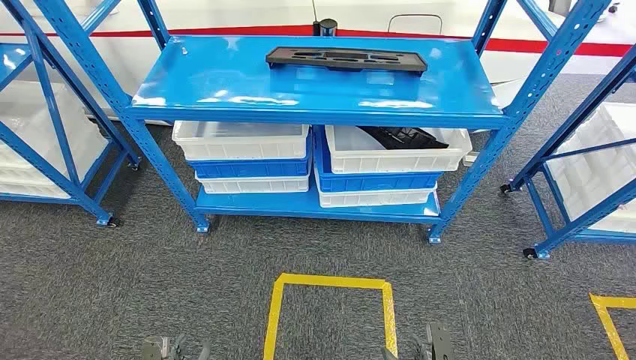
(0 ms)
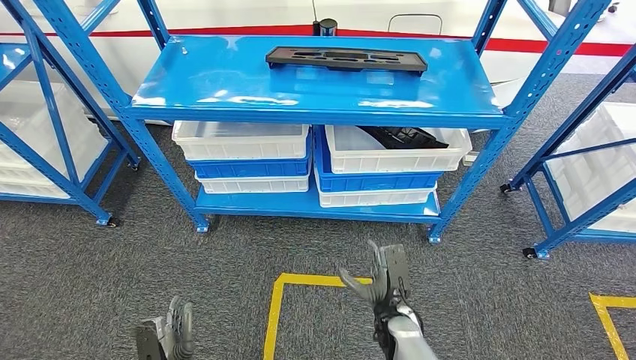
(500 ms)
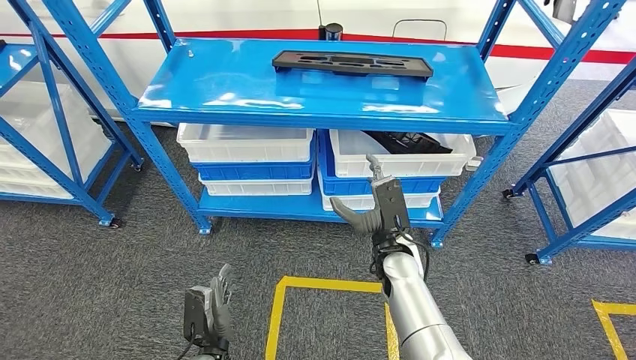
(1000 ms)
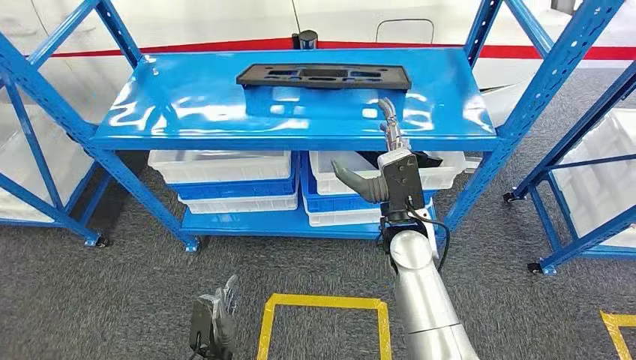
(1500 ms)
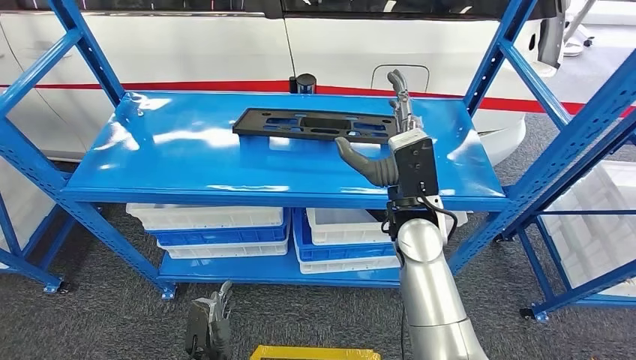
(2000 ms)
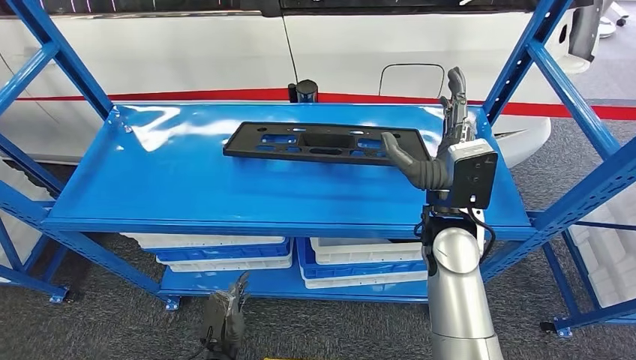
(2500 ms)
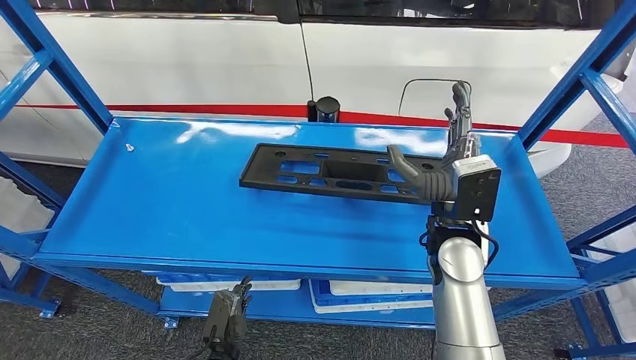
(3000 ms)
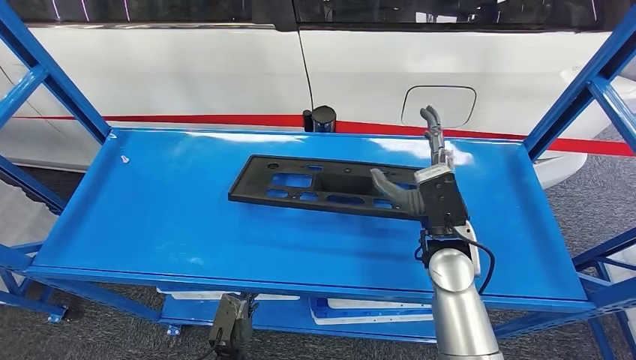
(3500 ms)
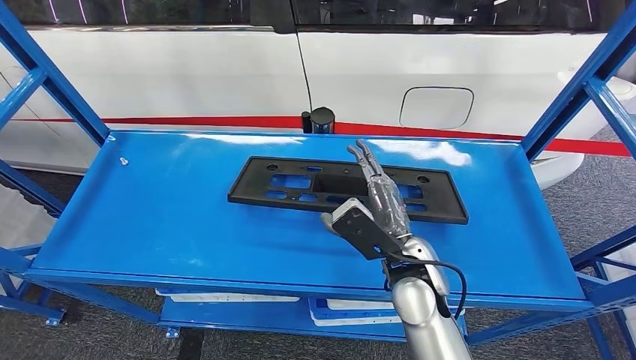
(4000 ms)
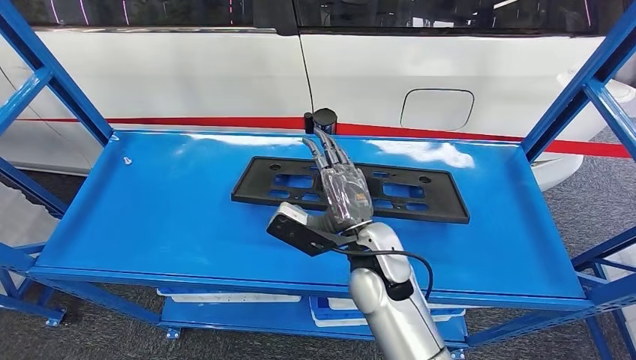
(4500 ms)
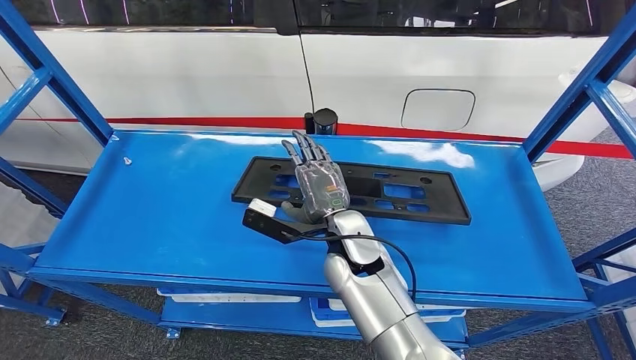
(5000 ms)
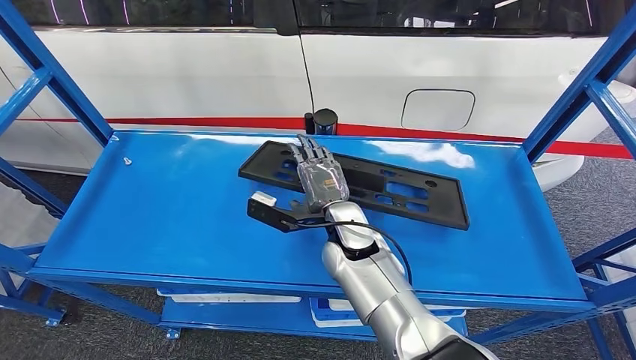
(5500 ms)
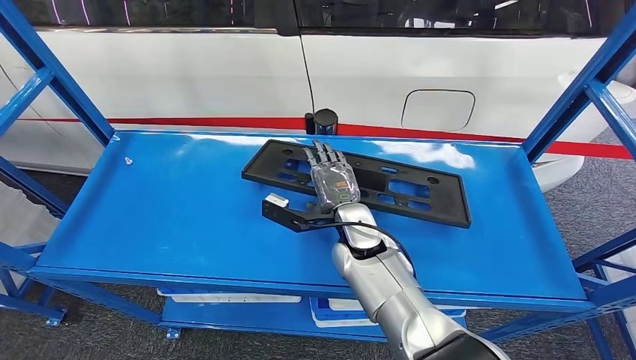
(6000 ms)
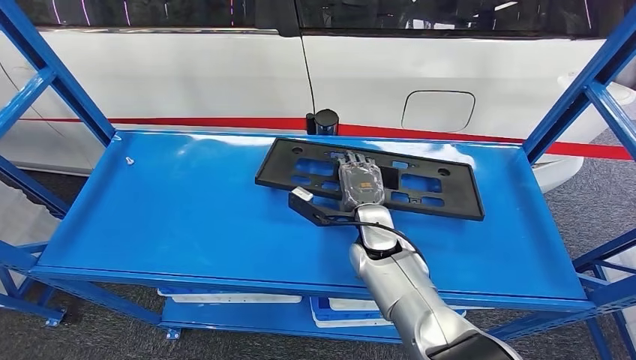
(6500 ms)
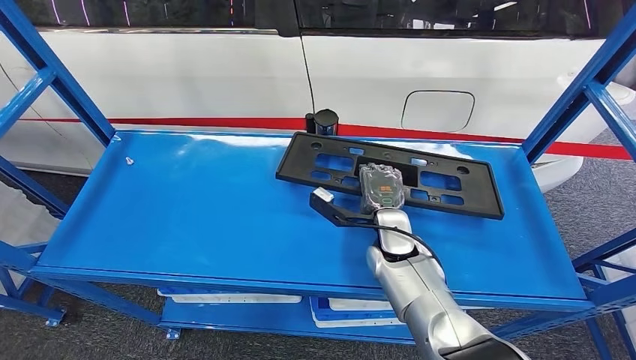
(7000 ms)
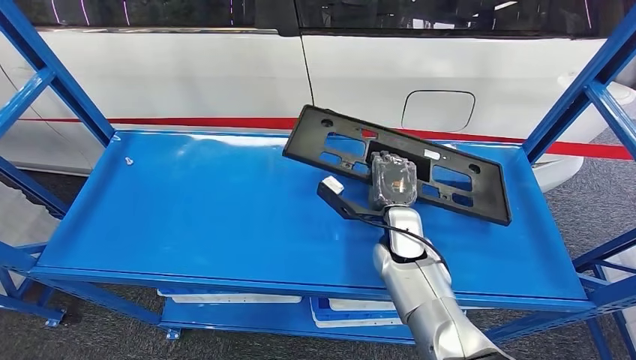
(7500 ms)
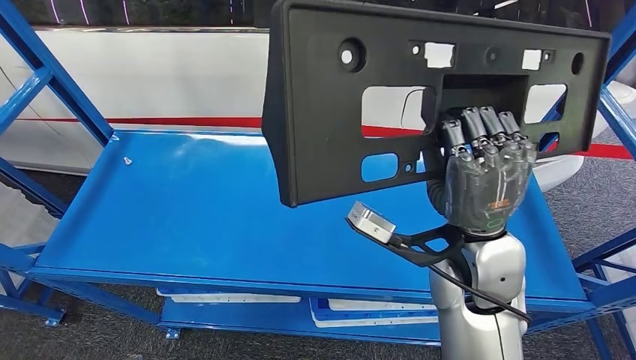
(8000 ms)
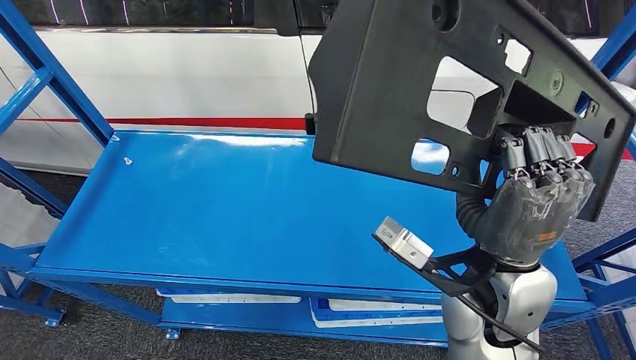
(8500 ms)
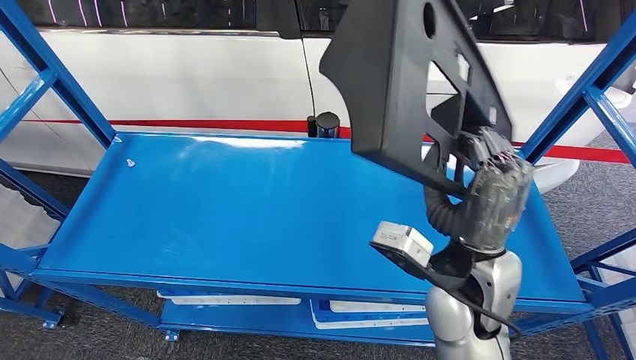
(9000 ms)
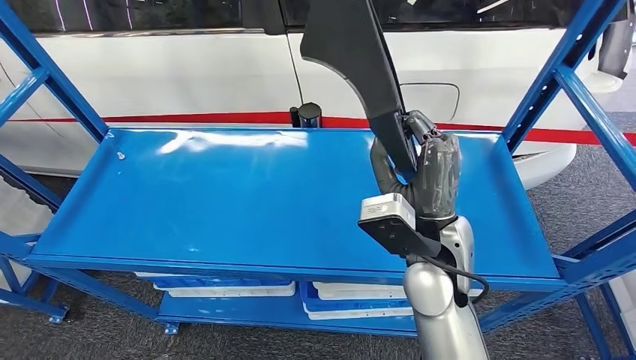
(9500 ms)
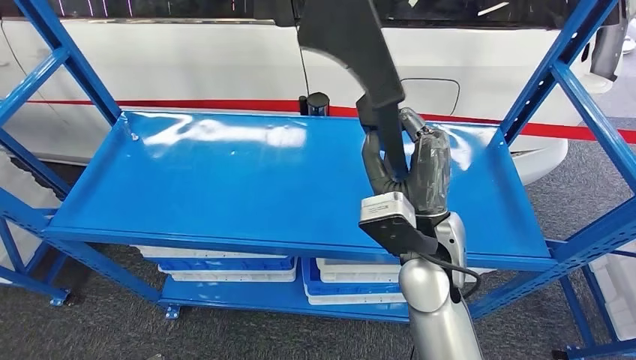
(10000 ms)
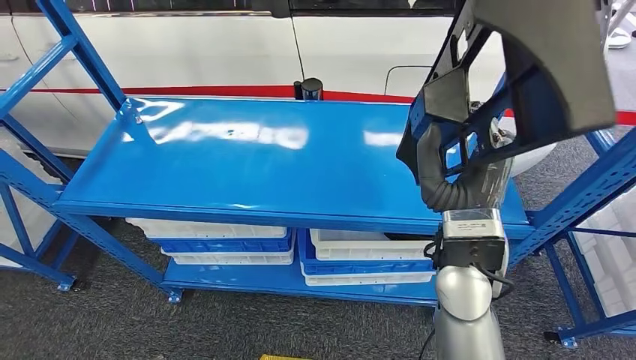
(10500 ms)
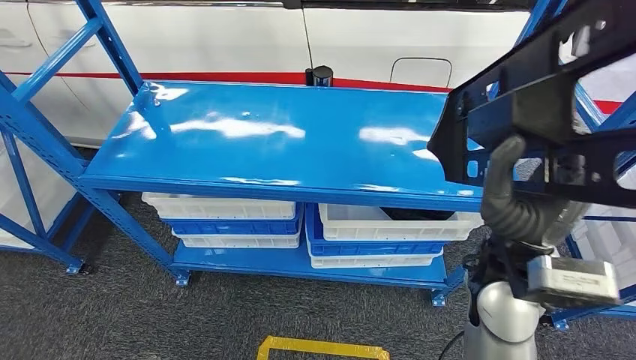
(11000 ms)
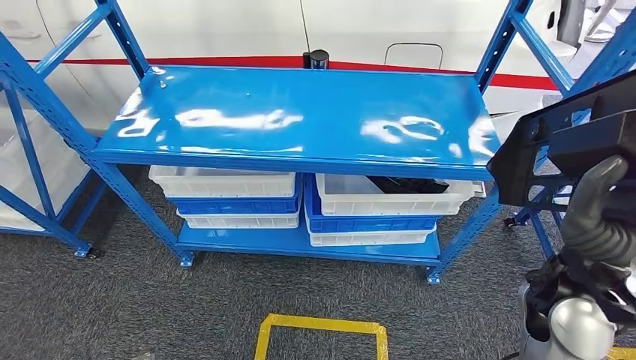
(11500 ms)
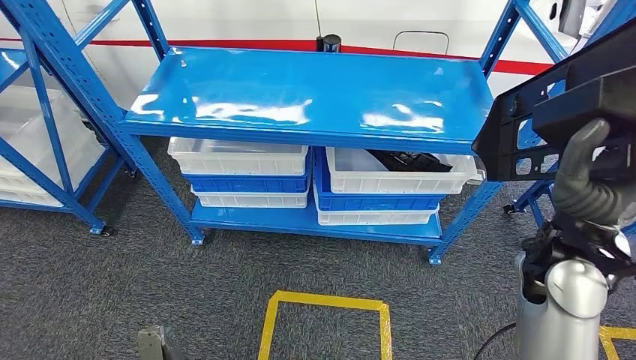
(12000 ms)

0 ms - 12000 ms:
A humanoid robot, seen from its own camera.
Step, 0 ms - 10500 ms: Pick up the large material from the shelf.
4000 ms - 6000 ms: The right hand travels forward and to the left by roughly 10 cm.

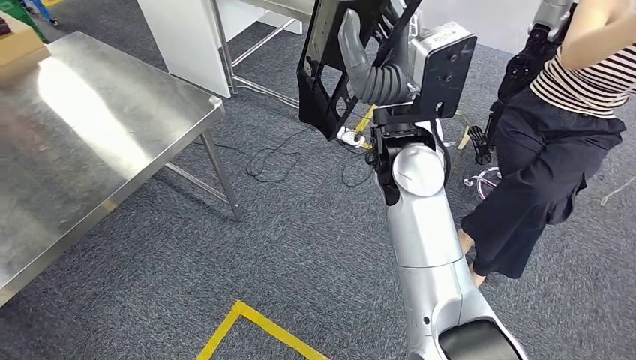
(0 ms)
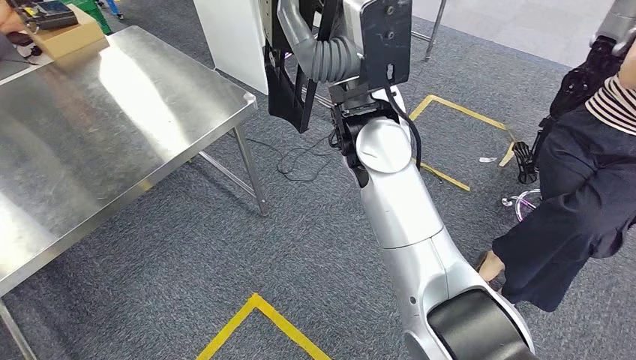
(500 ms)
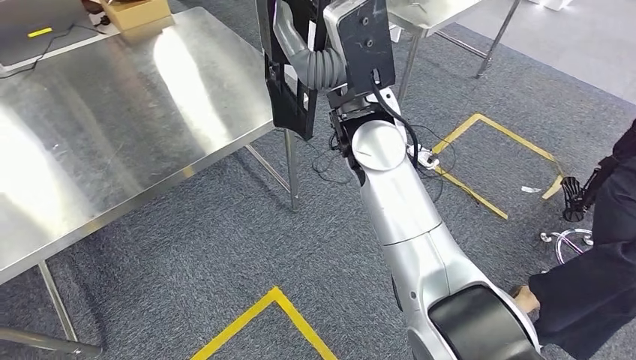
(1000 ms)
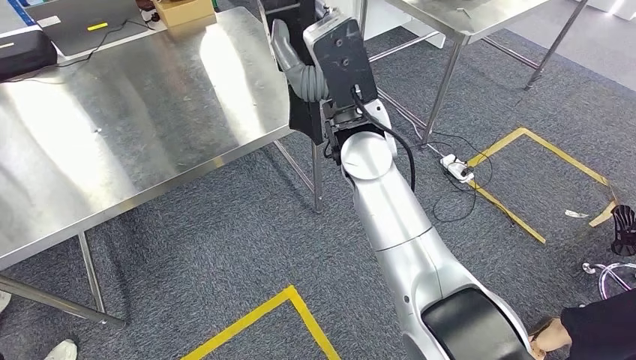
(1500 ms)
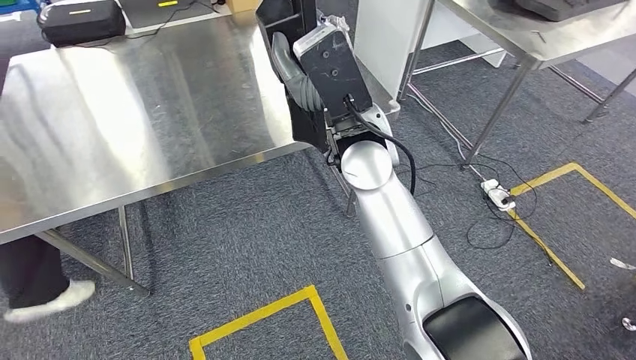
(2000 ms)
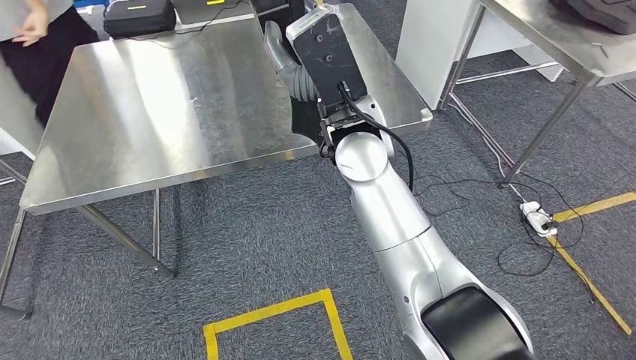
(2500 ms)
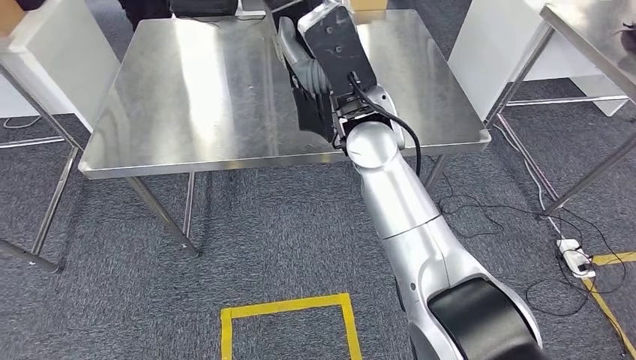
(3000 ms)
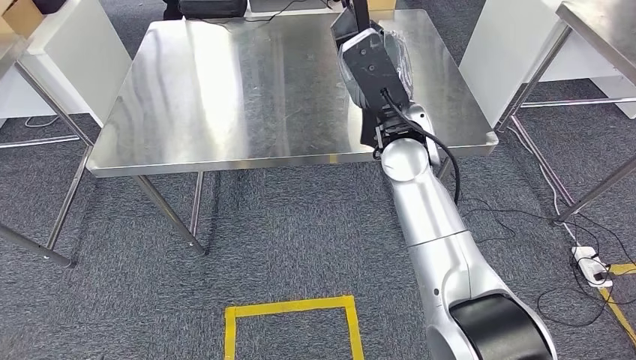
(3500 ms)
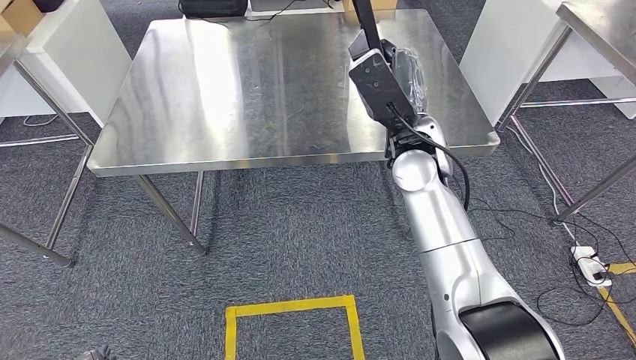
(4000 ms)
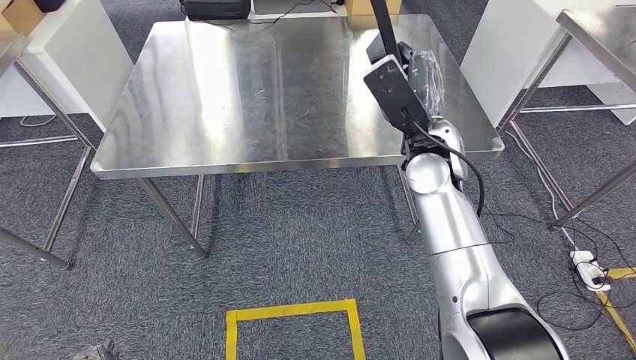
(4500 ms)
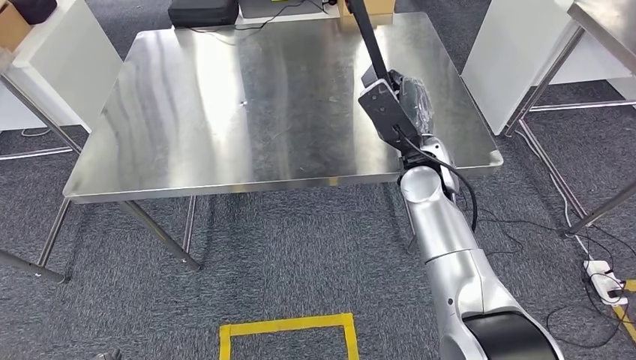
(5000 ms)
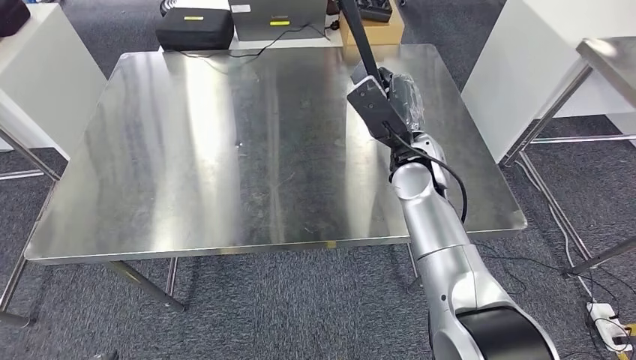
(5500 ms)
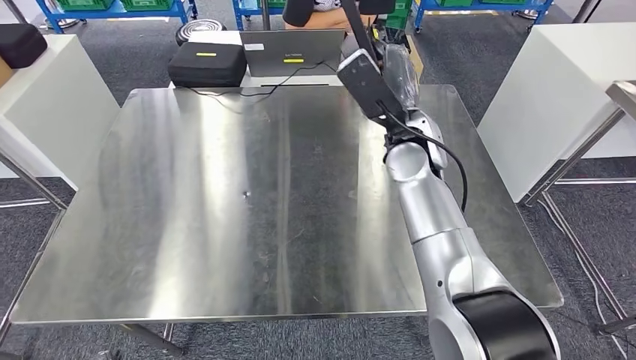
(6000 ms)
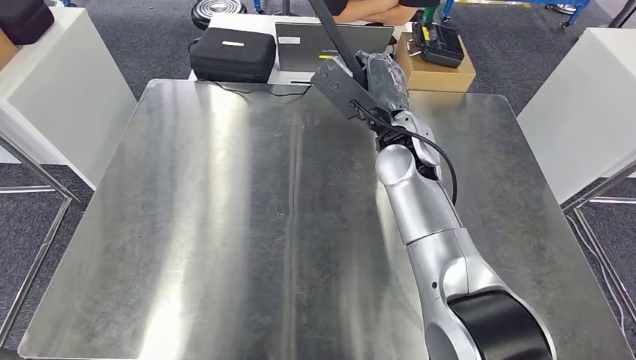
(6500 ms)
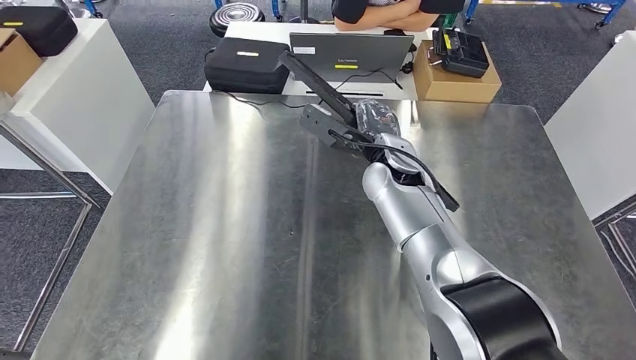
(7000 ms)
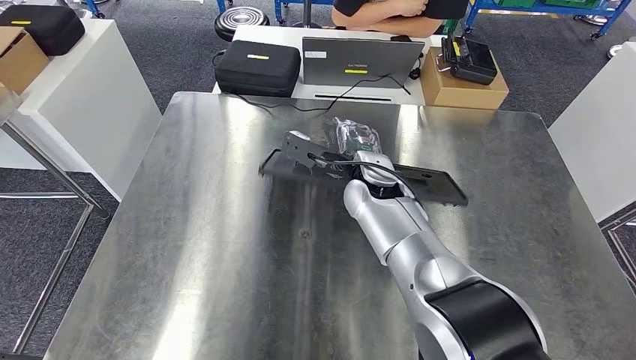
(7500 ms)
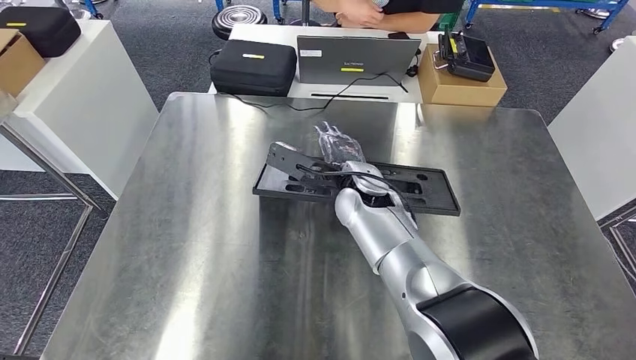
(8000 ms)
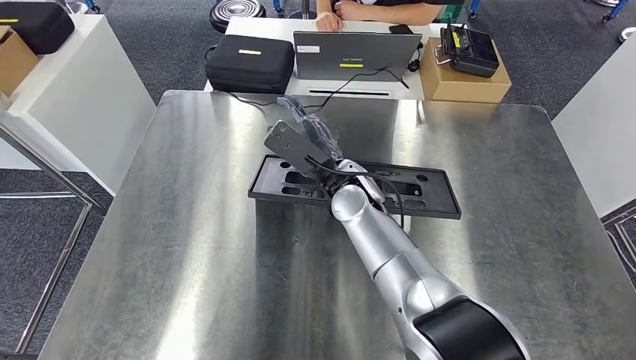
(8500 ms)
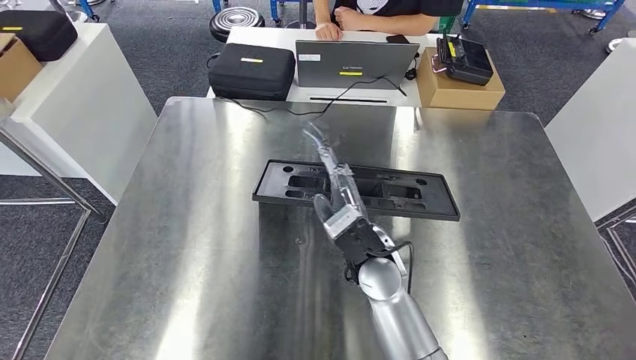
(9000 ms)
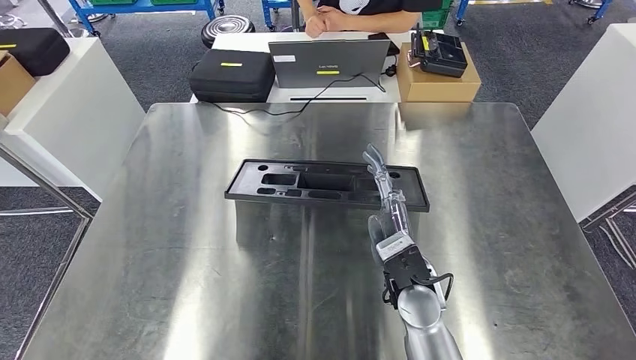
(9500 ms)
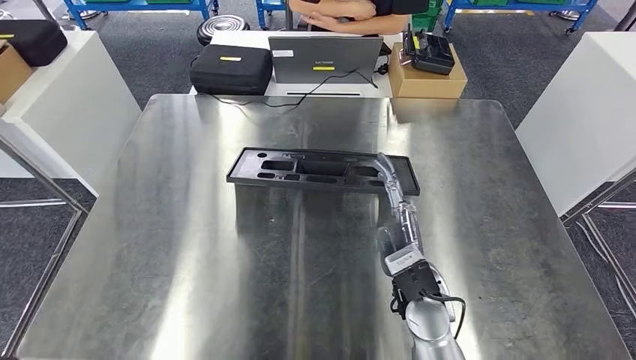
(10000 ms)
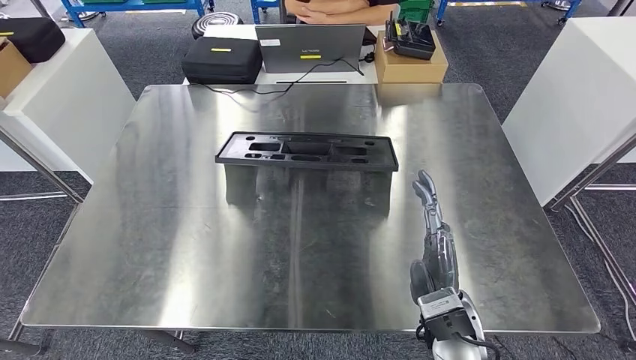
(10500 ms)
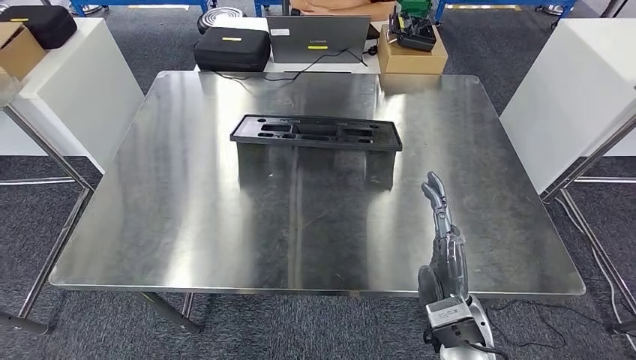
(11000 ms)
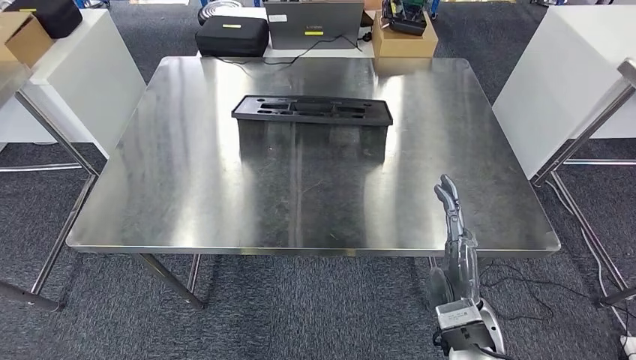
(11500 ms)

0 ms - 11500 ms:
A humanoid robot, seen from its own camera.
Step, 0 ms - 3000 ms: Move the large material to the workbench.
